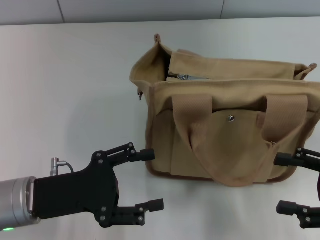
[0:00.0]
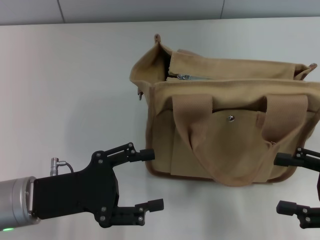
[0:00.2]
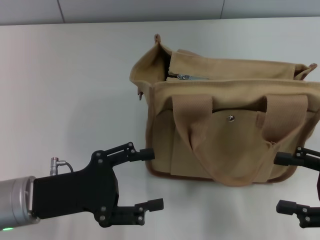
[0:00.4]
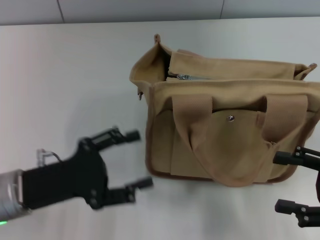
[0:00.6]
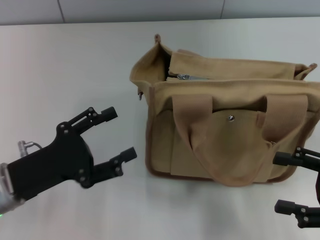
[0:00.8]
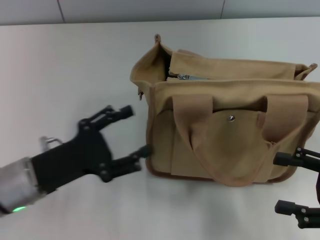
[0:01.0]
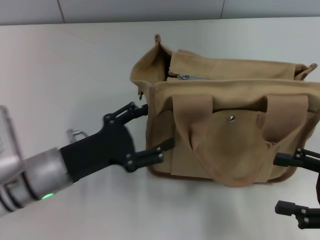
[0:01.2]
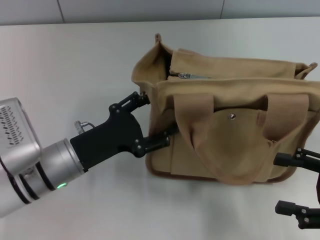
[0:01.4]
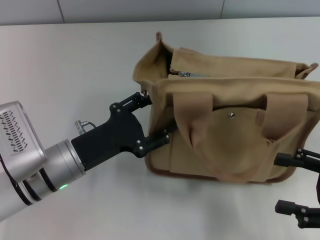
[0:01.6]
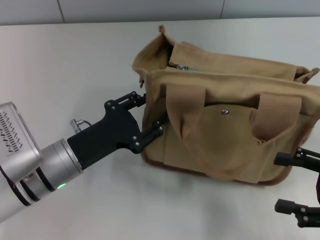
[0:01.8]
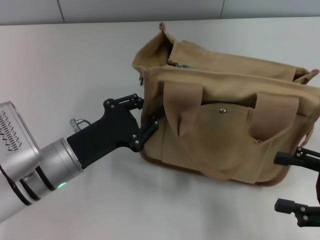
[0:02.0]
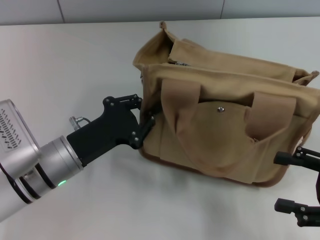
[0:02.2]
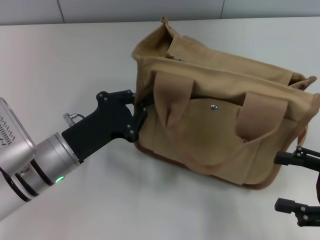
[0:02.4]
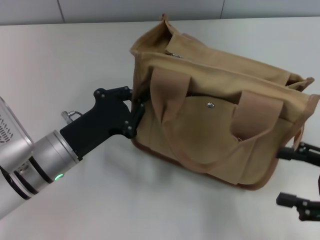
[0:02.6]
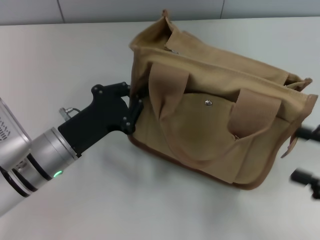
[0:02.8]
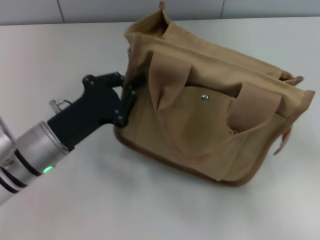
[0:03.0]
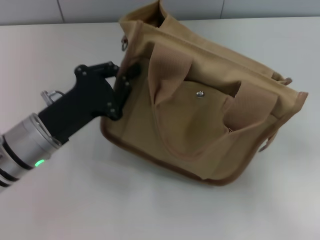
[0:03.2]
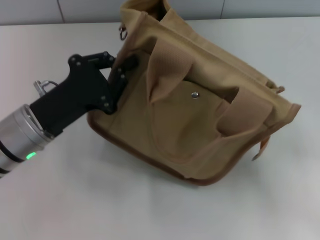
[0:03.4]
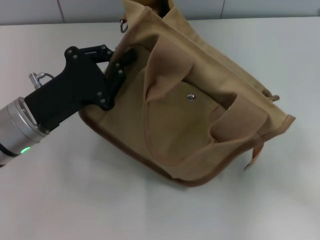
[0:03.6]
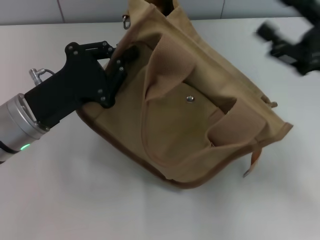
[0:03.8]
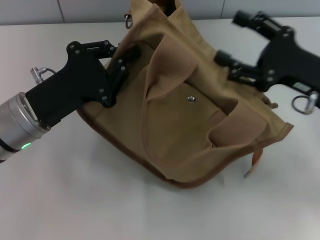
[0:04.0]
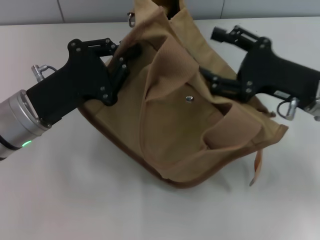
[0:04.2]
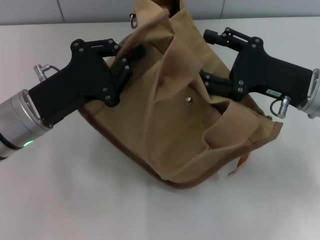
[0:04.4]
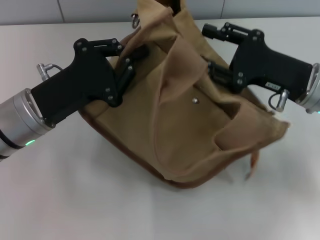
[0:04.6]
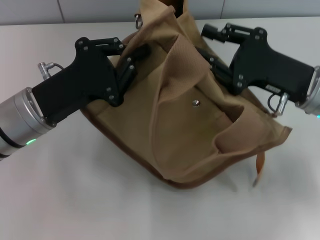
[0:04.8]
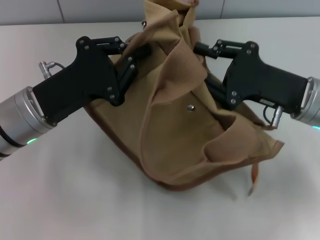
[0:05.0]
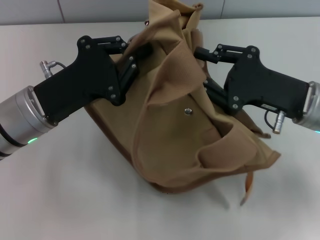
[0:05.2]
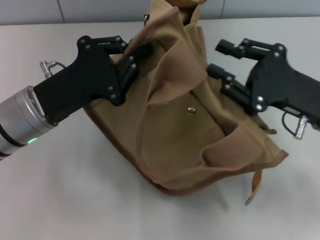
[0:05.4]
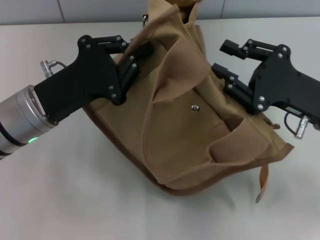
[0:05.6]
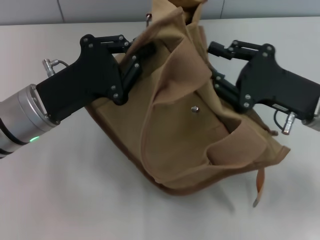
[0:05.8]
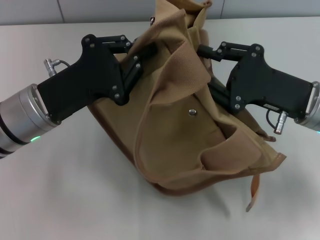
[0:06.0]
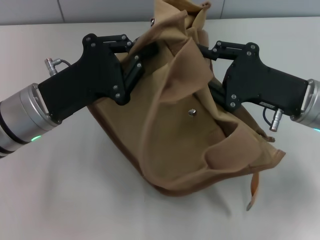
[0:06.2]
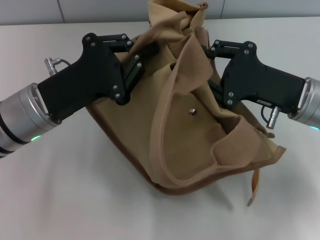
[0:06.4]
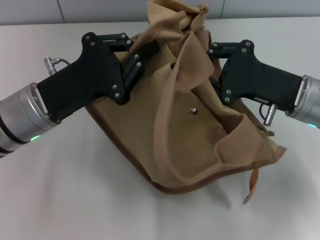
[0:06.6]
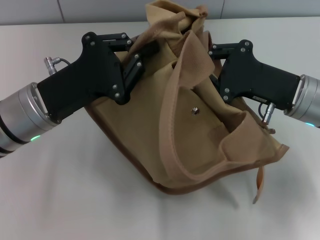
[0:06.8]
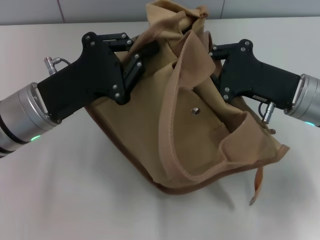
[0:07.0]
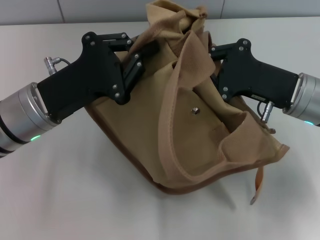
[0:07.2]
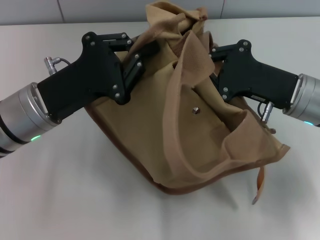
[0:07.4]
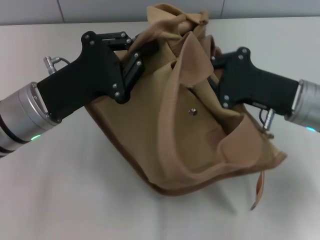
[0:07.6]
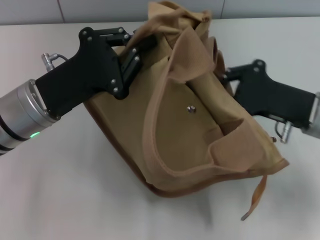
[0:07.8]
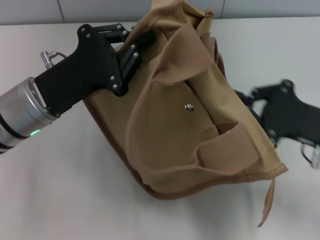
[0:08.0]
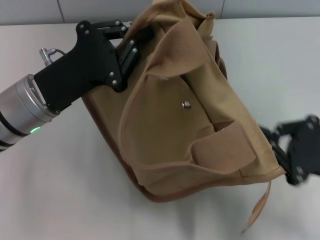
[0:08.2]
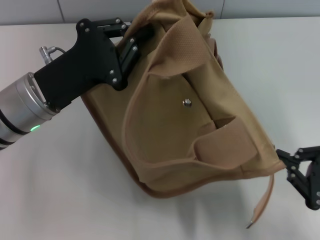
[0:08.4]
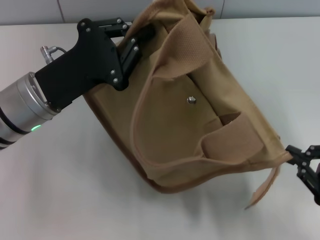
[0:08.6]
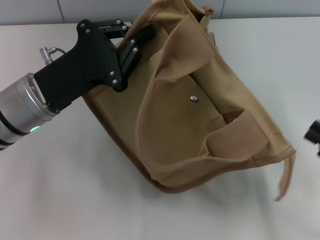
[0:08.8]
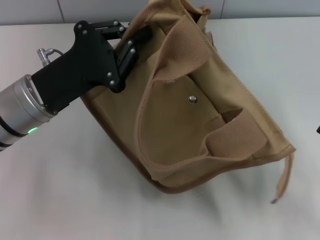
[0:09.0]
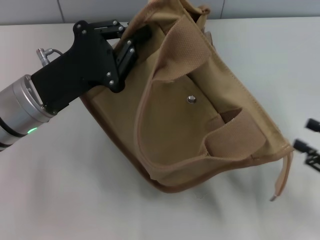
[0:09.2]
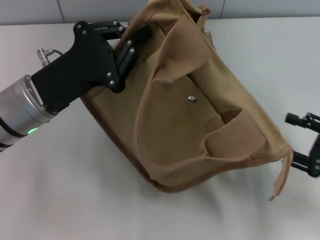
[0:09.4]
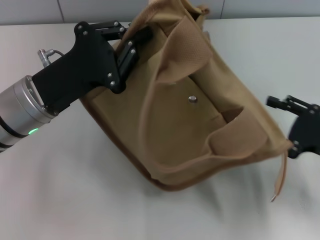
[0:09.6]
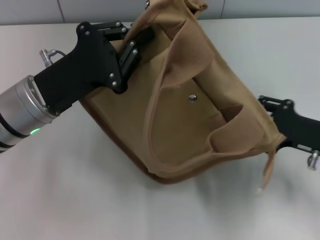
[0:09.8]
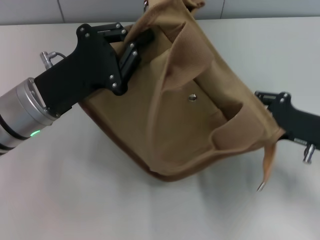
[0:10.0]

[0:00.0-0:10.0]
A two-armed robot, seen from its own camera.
Step, 0:00.0 to 0:08.8: Pull open the zipper with your right hand.
0:00.0 to 0:01.4: The left gripper moves some 5 cm.
0:01.4 to 0:02.8: The left gripper closes.
0:02.8 to 0:04.2: The right gripper travels forward and to the left by roughly 15 cm. Meanwhile the left gripper shifts about 5 cm upward.
0:04.2 to 0:05.8: The right gripper closes up.
0:05.8 to 0:07.2: The right gripper closes.
0:07.2 to 0:08.6: The right gripper moves backward and to the right, some 20 cm.
0:08.6 to 0:10.0: The right gripper travels forward by roughly 10 cm, and opens up.

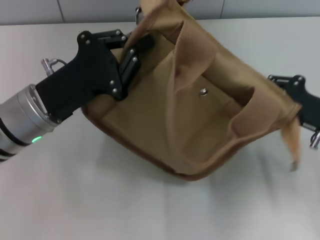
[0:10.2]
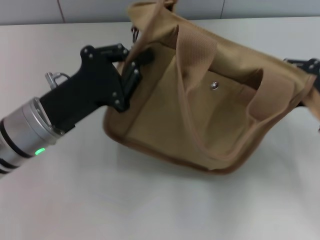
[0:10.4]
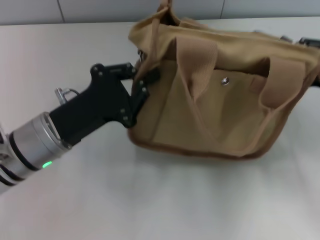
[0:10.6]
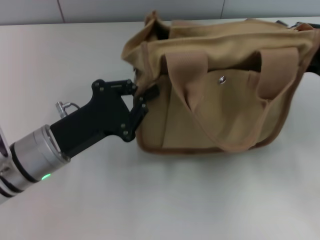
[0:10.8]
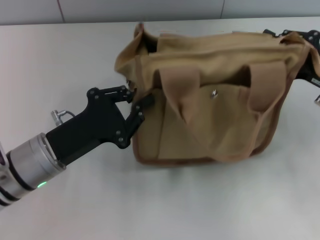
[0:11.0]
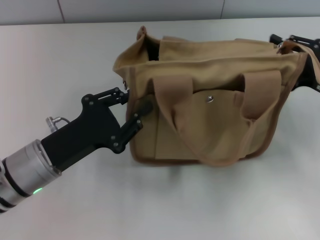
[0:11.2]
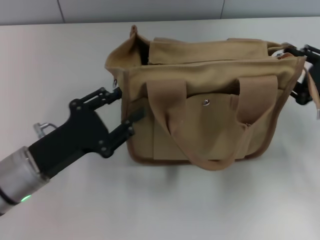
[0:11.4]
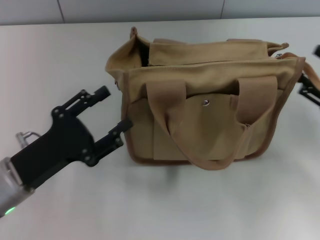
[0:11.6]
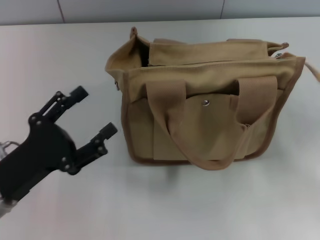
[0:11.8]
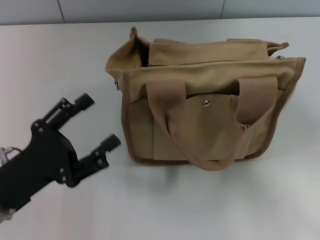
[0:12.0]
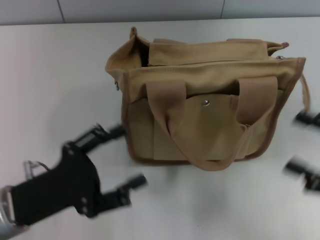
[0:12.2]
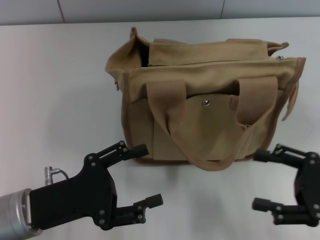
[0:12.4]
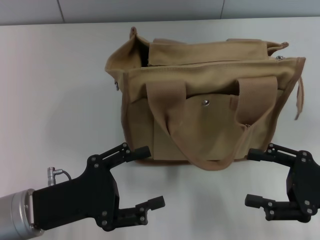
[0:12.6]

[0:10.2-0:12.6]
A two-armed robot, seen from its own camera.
Step, 0:10.2 to 0:11.4: Grab the bag with your left hand.
0:10.2 to 0:11.4: The left gripper shifts about 10 cm backward and downward, and opens.
0:11.4 to 0:12.6: The left gripper opens up; the right gripper heads backward, covering some 10 cm, and opens.

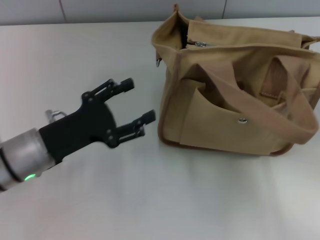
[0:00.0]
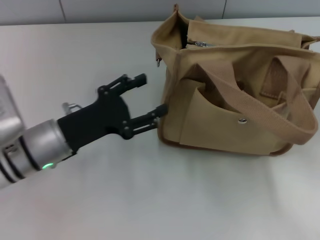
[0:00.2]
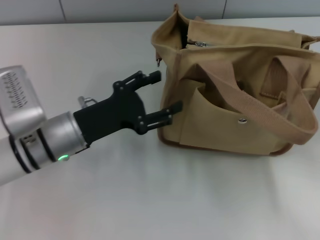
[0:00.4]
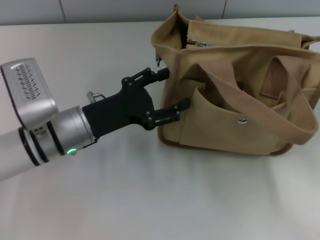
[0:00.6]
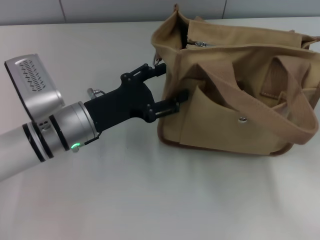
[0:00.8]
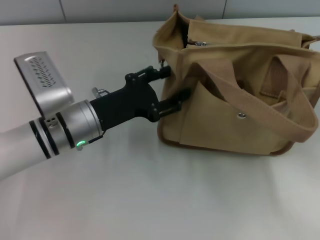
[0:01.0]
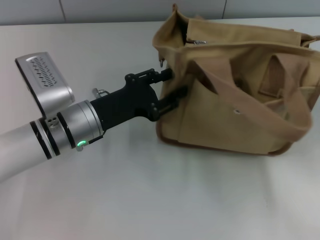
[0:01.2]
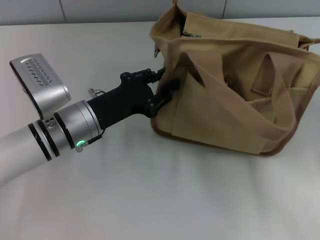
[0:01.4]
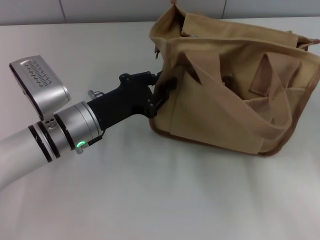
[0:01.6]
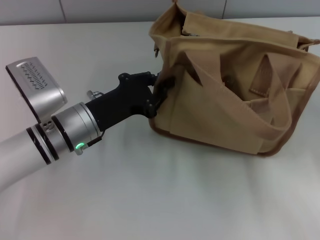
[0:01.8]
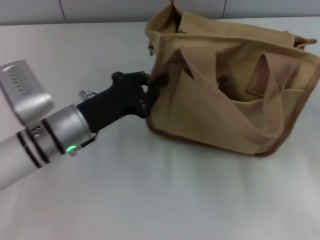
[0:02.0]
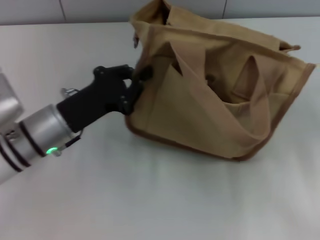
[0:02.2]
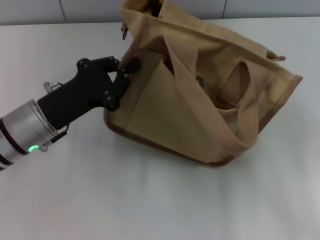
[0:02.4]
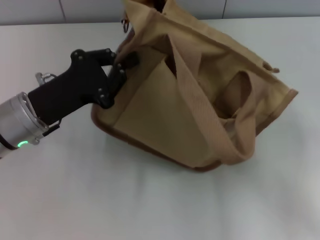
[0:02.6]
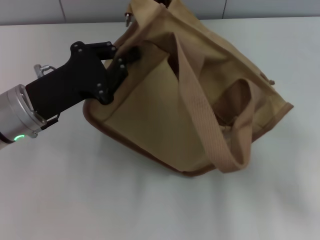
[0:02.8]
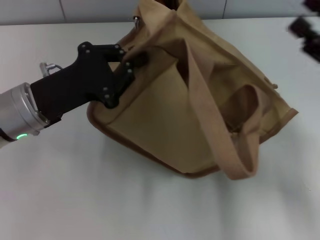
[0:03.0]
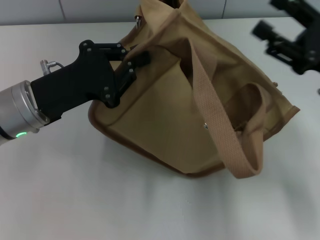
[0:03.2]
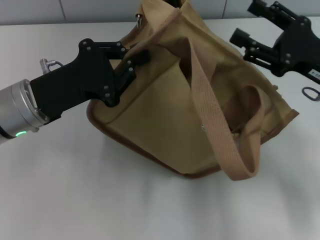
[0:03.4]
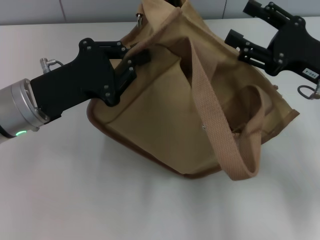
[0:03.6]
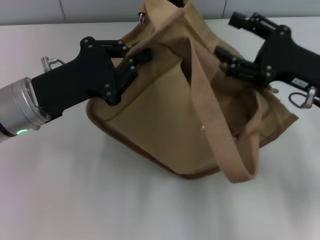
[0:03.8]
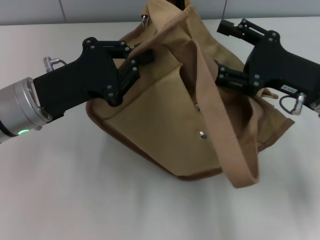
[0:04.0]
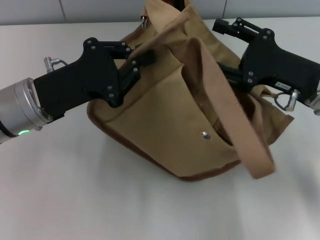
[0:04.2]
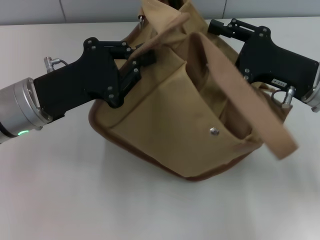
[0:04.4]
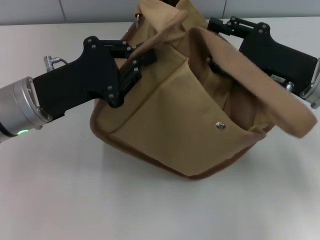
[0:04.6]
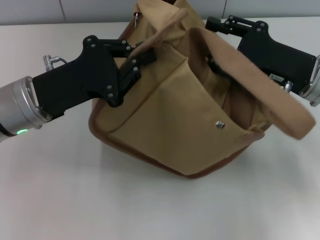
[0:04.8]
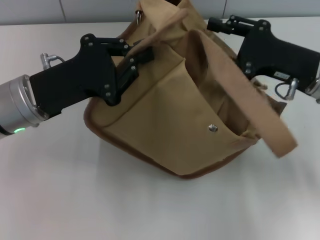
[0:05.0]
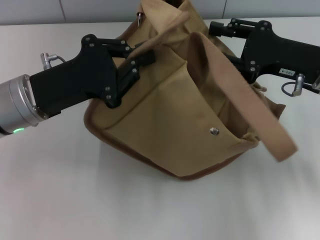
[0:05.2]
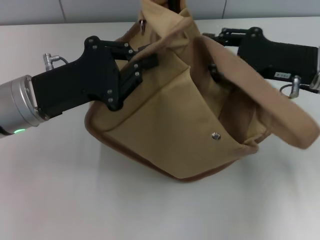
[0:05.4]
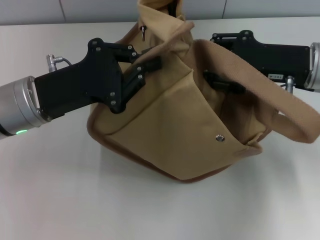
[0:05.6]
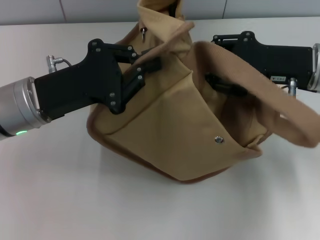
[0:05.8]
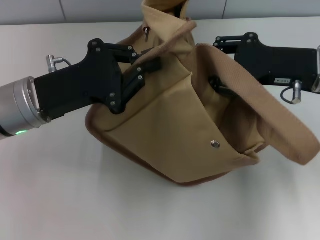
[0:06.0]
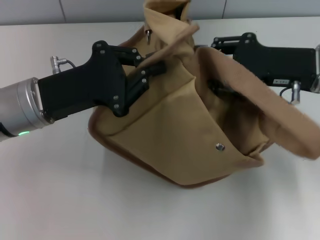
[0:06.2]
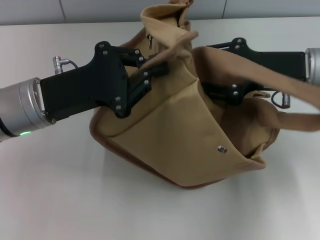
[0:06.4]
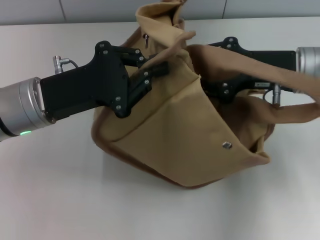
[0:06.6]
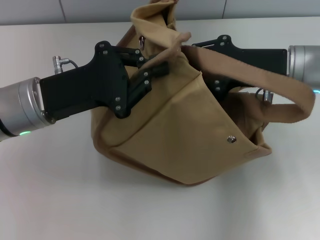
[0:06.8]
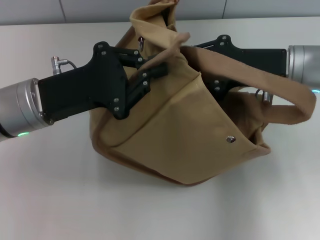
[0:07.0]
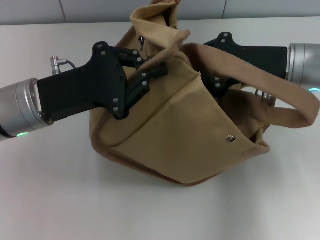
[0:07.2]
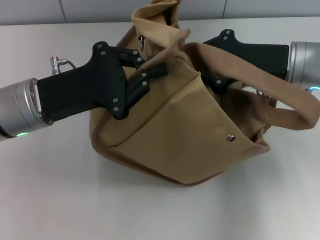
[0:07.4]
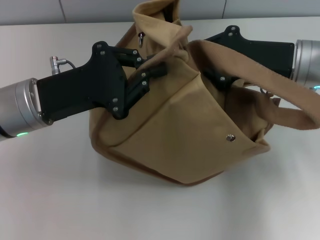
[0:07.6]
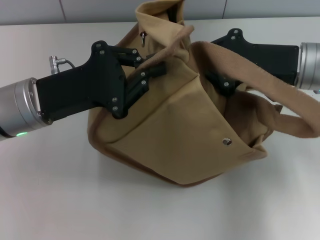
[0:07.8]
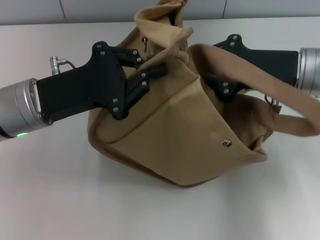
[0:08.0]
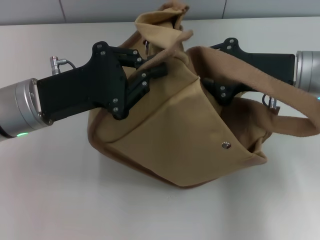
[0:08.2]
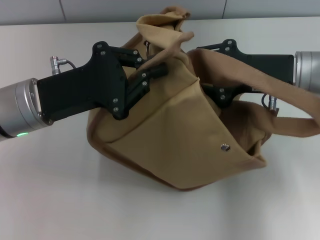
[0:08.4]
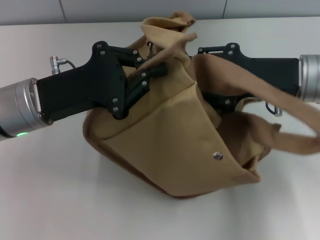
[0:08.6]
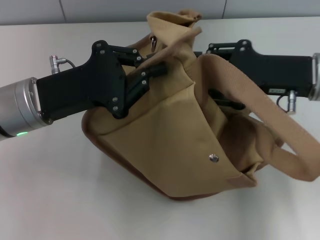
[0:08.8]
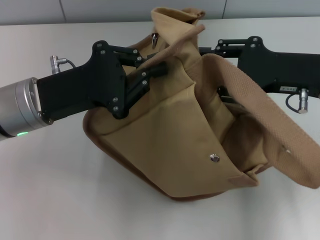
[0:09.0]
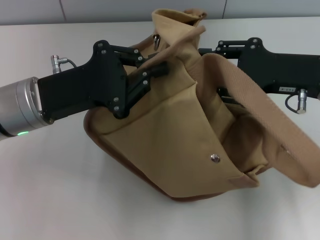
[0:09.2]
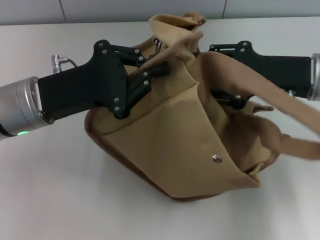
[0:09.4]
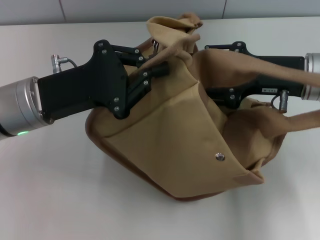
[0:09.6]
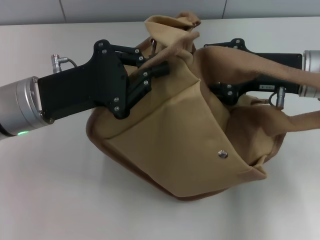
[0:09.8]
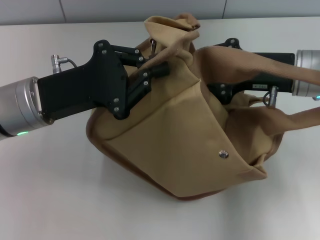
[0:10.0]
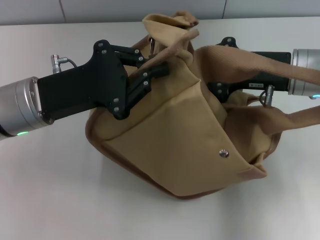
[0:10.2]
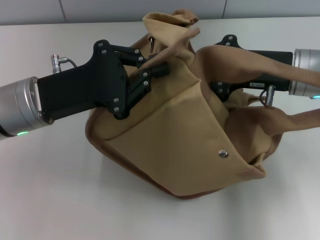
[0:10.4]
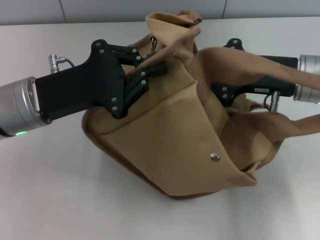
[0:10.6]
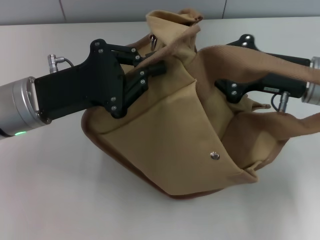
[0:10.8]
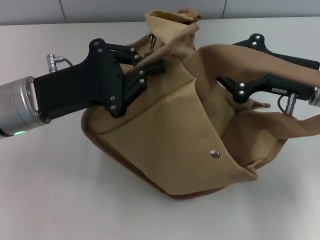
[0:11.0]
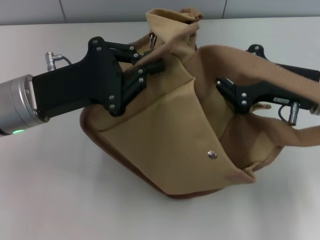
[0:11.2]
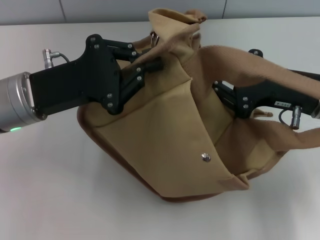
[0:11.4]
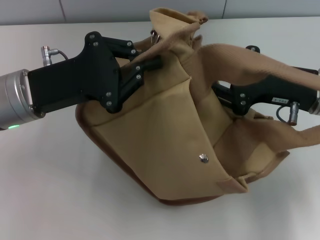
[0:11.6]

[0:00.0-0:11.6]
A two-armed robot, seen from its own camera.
0:00.0 to 0:01.4: The left gripper is displaced to the right and forward by about 10 cm, and closes up.
0:01.4 to 0:02.8: The right gripper shifts approximately 5 cm forward. Meanwhile the left gripper moves to the left and upward, approximately 10 cm, and closes up.
0:02.8 to 0:04.4: The right gripper travels to the left and forward by some 15 cm.
0:05.8 to 0:07.2: The grippers stay close to where they were, moving slightly.
0:07.2 to 0:08.8: The right gripper closes, then reopens.
0:08.8 to 0:10.2: The grippers make only small movements.
